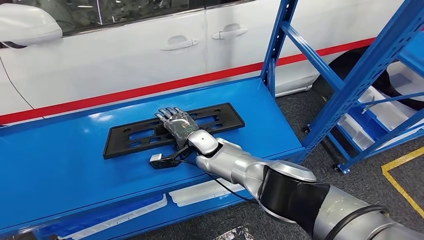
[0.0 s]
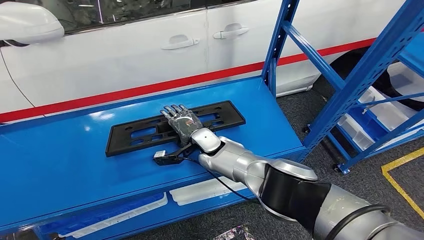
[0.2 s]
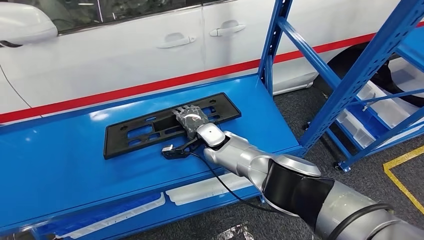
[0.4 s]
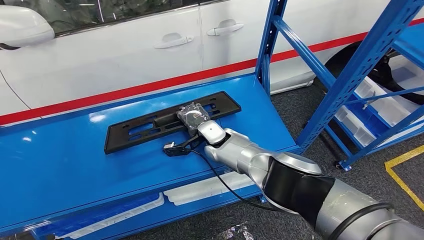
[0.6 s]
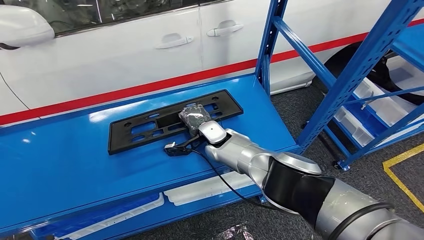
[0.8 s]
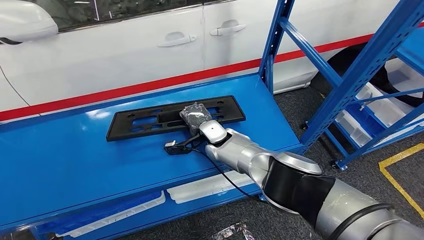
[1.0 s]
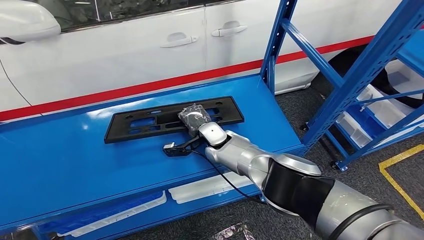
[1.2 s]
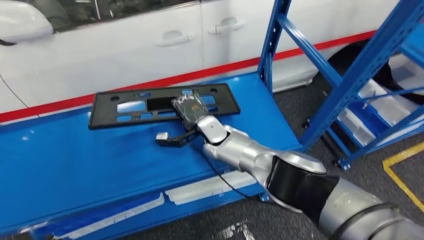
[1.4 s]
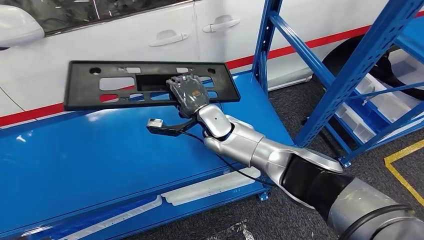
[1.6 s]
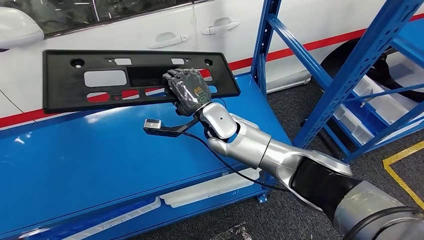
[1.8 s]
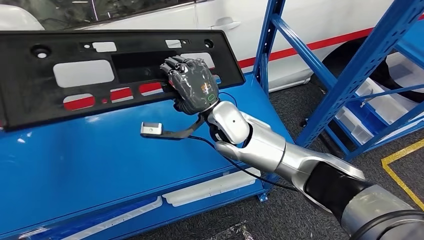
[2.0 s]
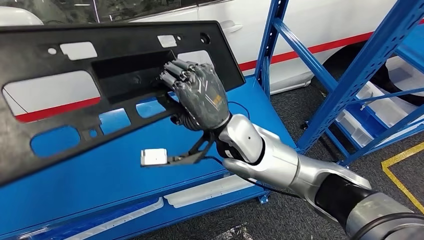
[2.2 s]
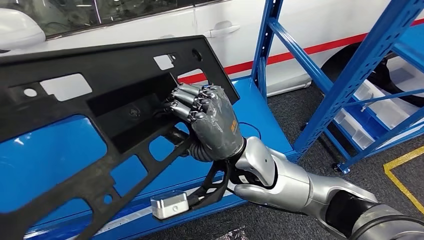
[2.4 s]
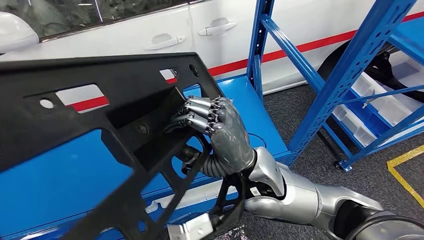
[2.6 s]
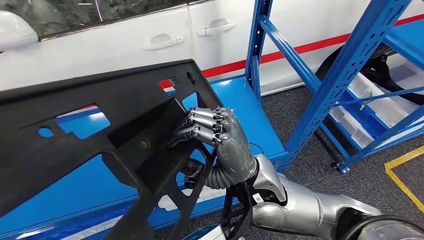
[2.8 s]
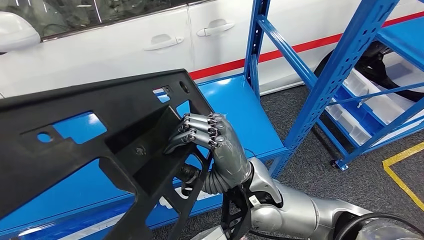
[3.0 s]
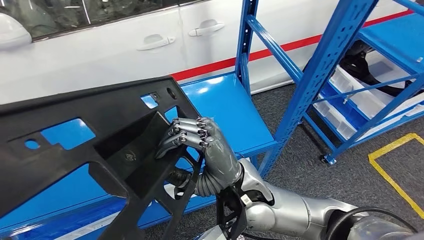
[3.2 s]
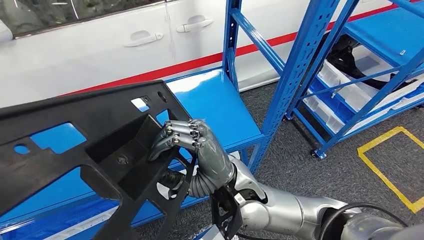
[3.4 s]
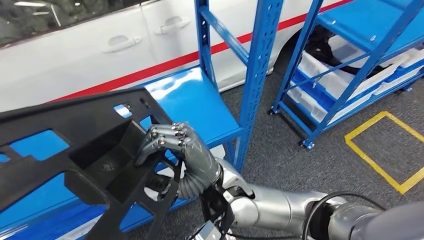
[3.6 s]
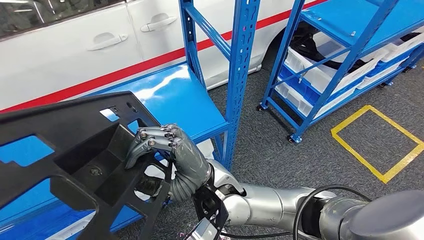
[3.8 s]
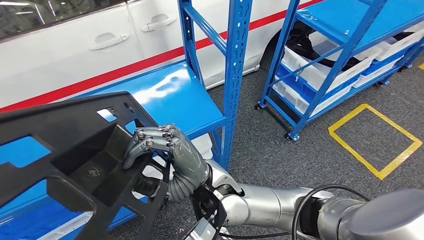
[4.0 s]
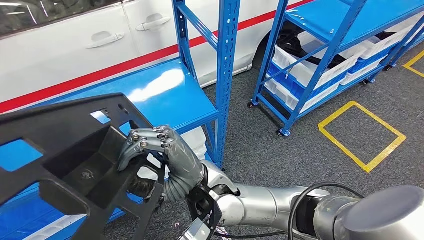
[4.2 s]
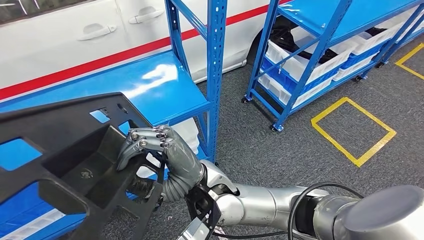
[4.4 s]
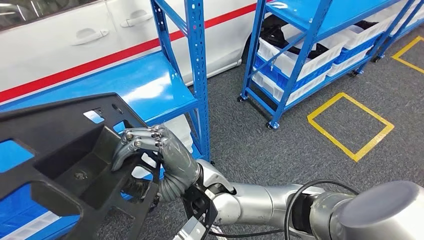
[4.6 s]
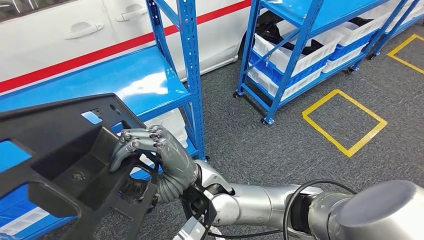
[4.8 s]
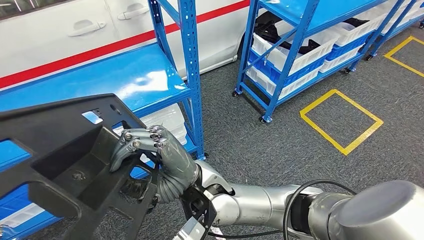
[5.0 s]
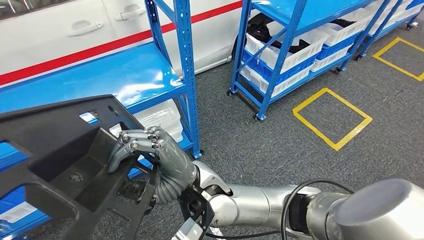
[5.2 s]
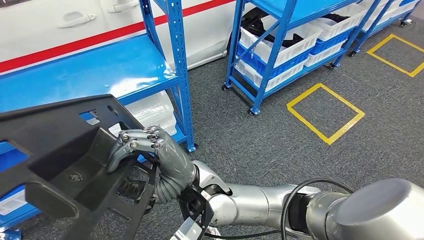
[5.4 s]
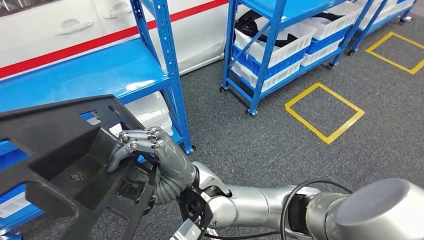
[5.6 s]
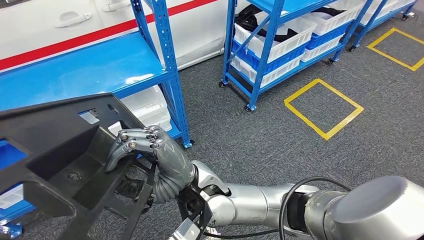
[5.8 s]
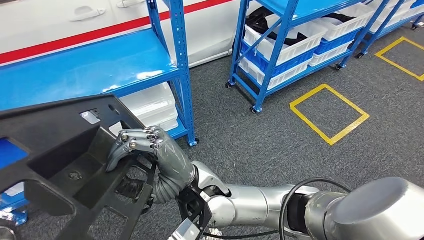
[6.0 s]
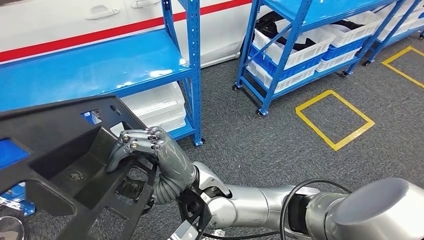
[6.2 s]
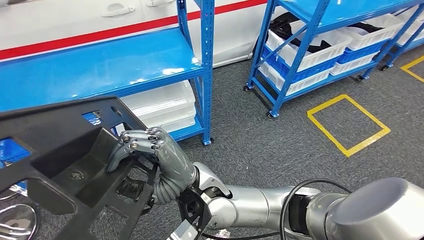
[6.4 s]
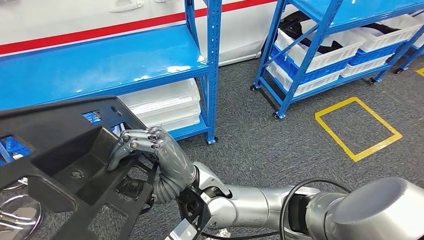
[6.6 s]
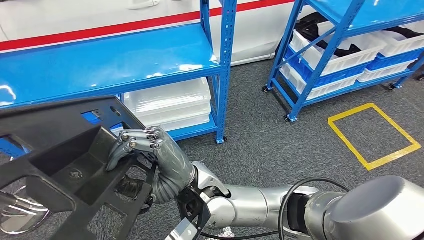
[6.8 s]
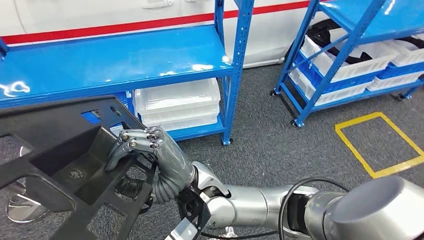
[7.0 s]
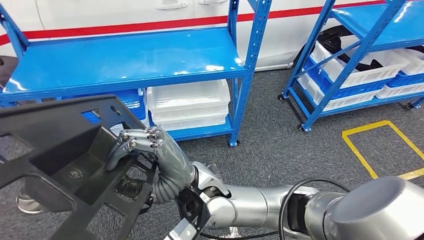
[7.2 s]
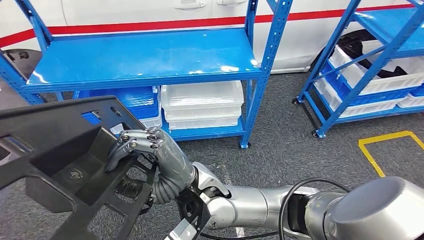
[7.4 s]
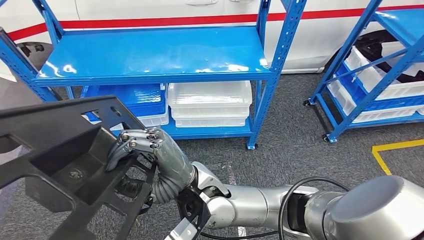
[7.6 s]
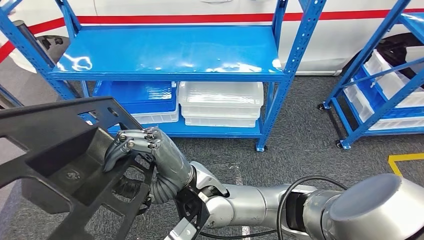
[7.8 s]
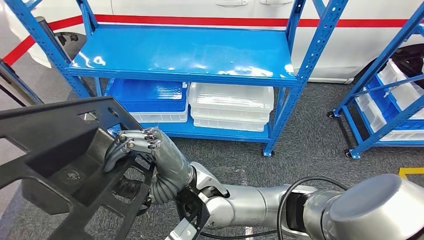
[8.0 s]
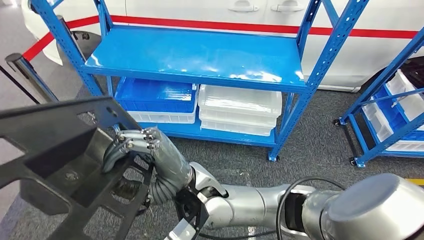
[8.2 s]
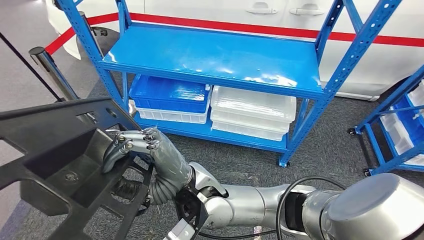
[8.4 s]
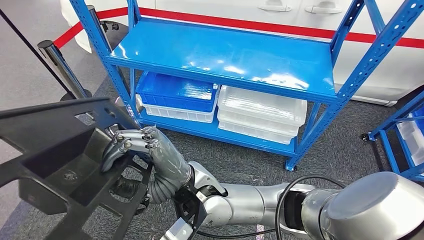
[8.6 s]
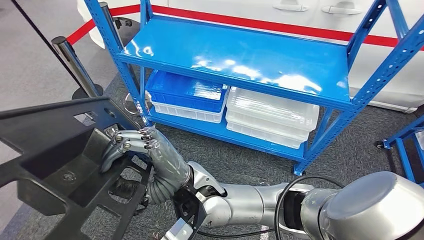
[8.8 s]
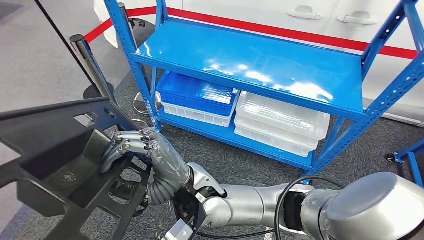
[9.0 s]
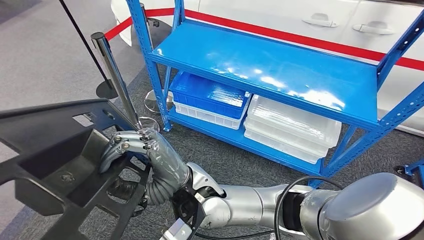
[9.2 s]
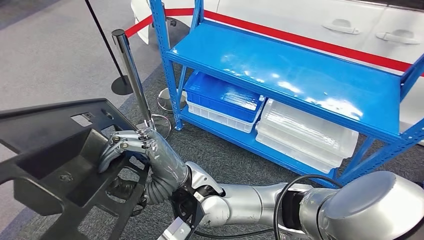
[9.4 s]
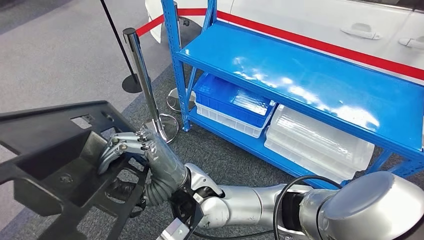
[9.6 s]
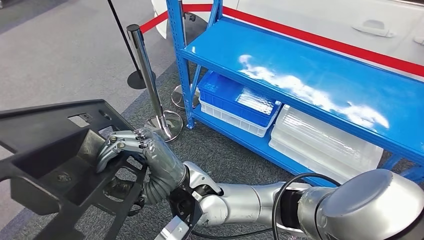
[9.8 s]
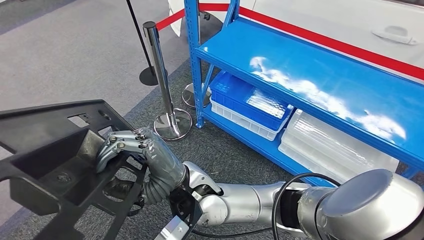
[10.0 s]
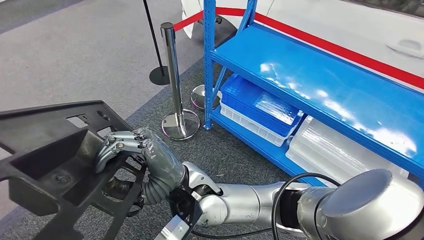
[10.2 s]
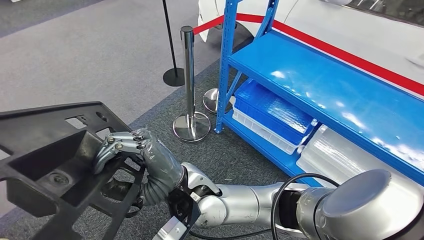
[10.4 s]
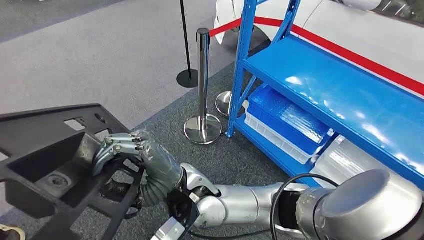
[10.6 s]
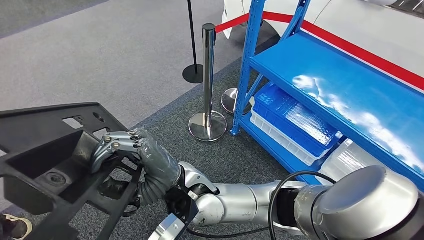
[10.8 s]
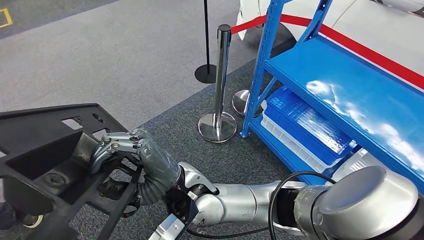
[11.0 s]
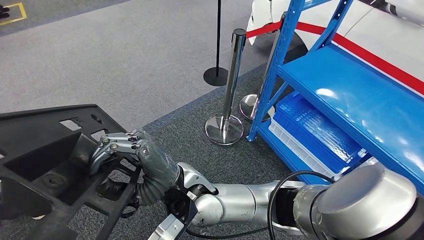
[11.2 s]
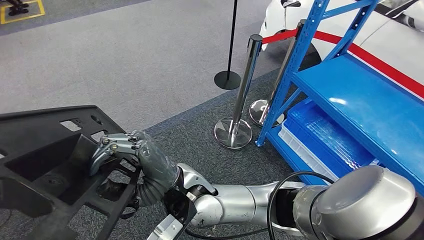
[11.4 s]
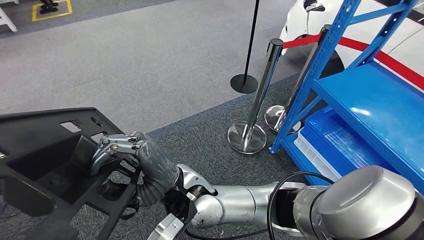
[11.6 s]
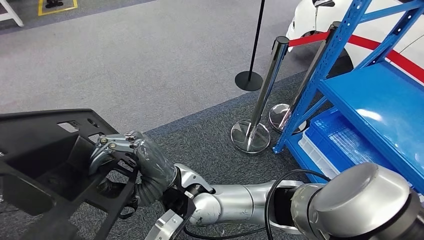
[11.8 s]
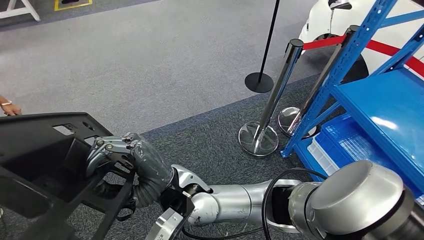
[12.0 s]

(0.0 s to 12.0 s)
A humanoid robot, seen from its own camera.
Step, 0.0 s - 4.8 s: Pick up the large material from the shelf.

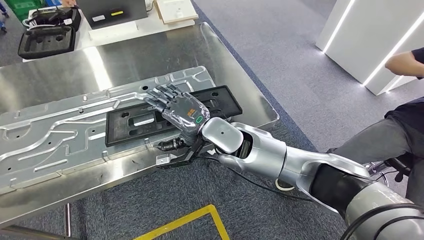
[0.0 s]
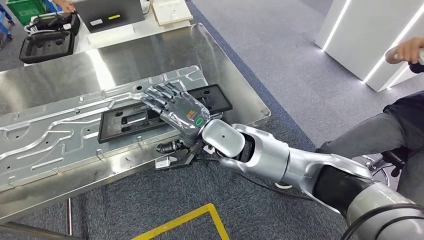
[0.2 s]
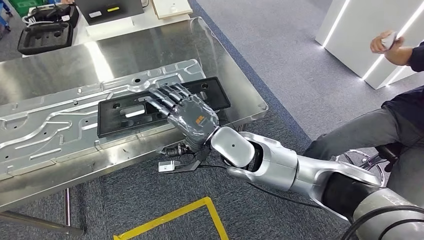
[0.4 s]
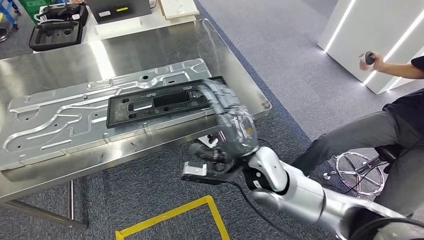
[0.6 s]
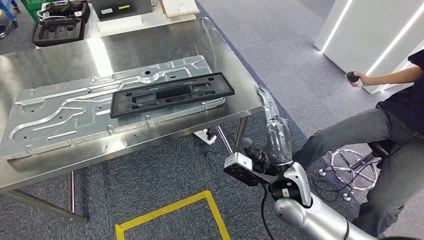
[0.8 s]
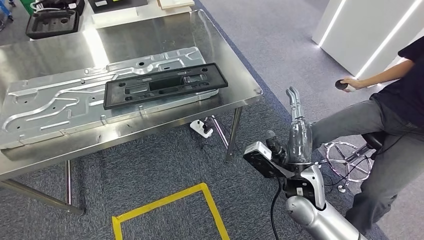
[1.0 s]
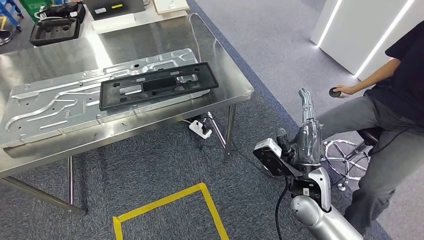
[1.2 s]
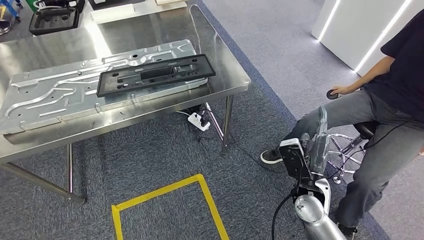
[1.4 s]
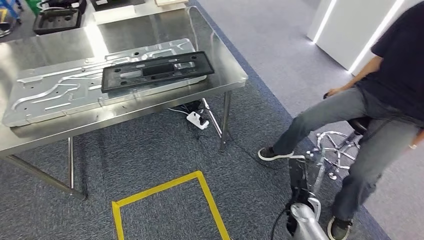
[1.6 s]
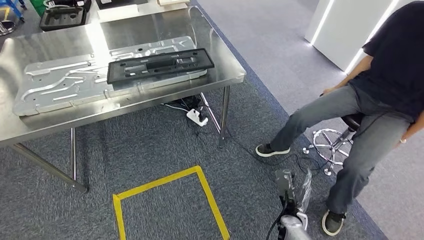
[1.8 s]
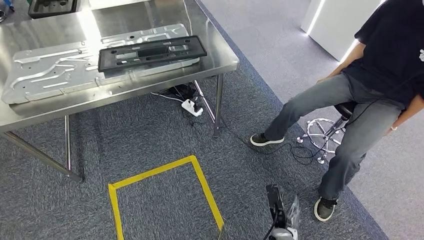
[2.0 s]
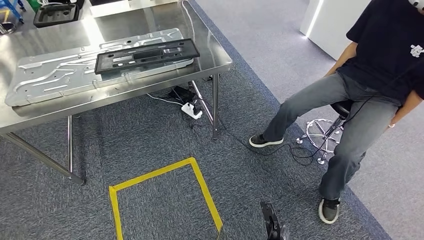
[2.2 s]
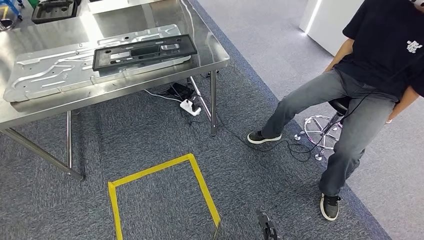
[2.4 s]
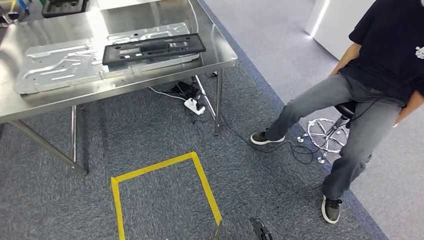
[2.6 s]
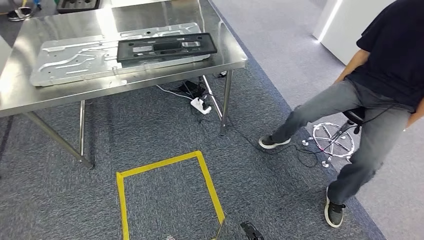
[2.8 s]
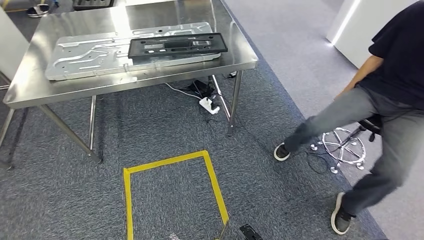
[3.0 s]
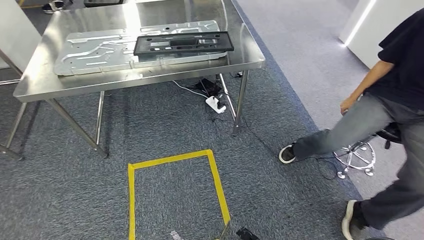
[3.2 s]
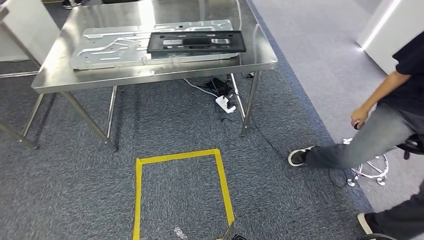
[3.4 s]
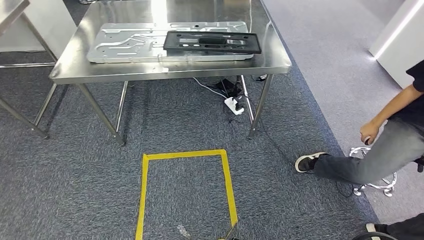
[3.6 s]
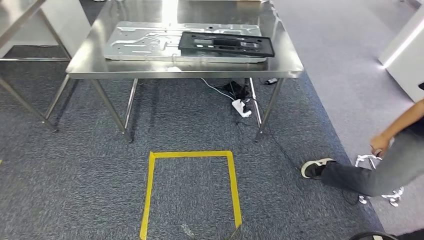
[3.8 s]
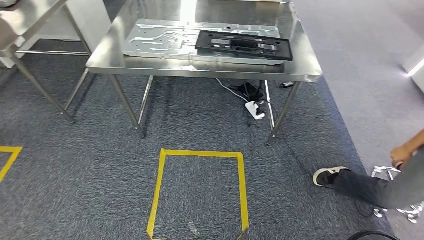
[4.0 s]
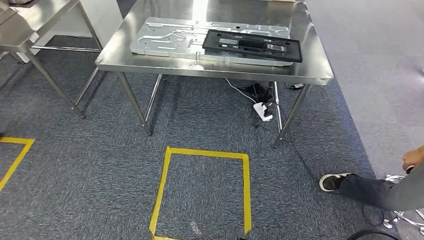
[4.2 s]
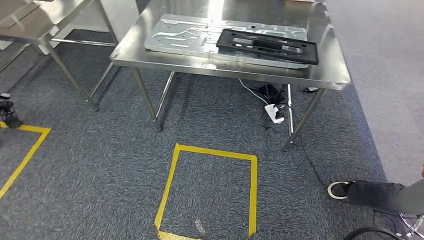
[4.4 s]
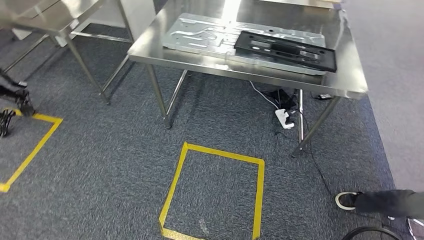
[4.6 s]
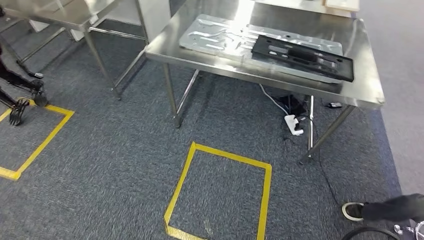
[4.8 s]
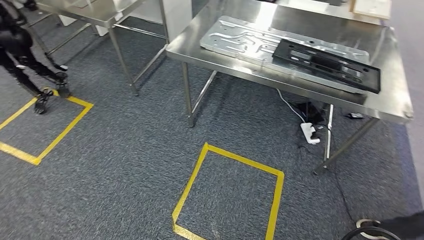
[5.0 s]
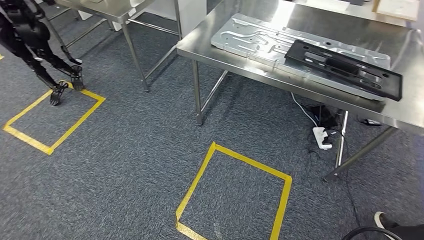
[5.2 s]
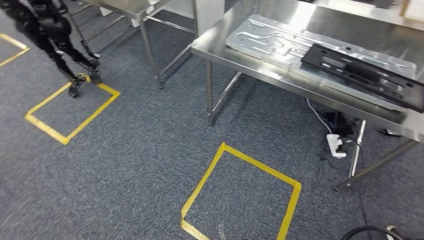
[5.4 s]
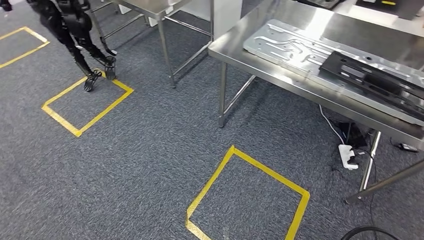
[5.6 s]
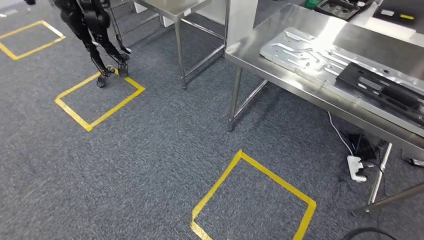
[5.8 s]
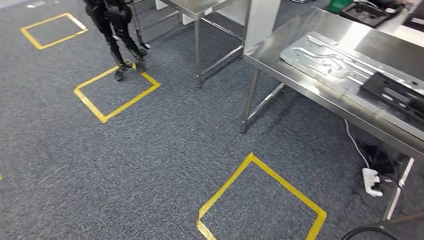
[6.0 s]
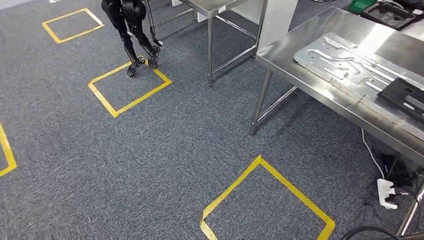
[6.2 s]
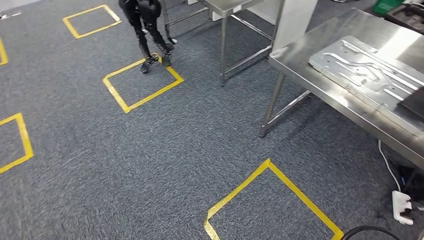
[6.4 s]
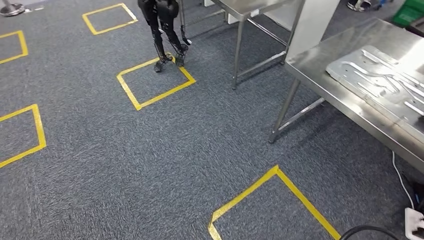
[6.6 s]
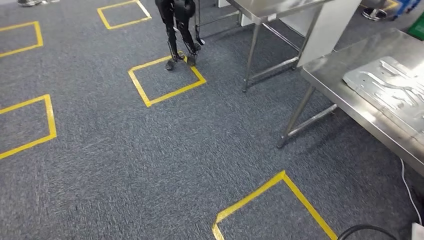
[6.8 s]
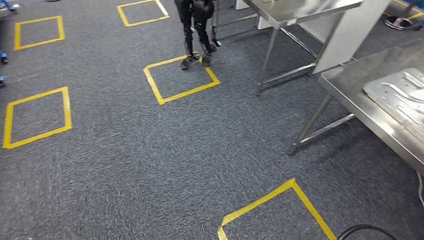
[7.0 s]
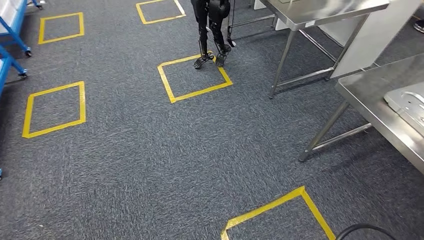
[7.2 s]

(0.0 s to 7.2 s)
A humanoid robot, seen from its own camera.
Step, 0.0 s - 3.8 s: Insert the large material into the corresponding slot on the workbench.
